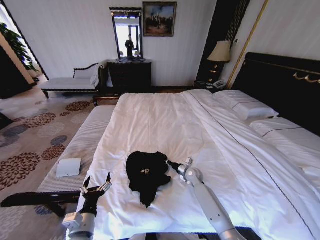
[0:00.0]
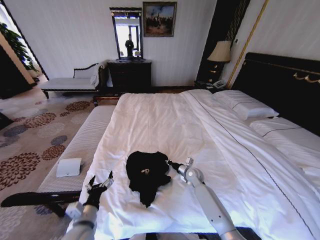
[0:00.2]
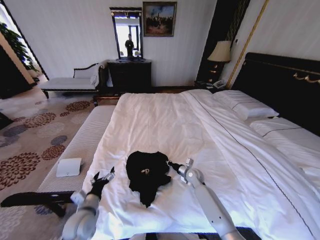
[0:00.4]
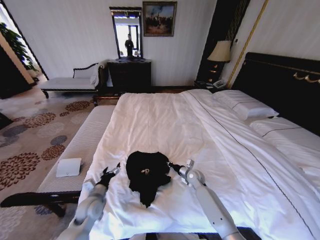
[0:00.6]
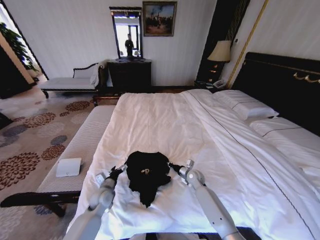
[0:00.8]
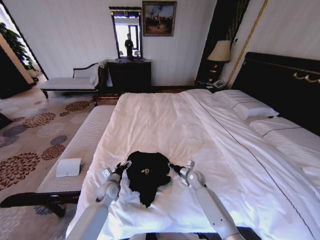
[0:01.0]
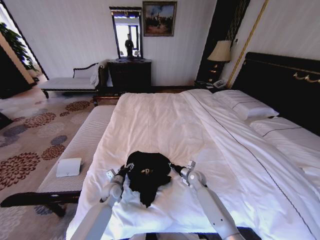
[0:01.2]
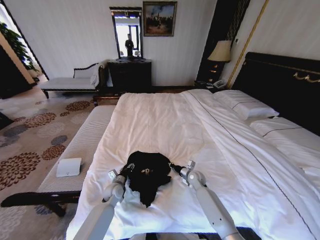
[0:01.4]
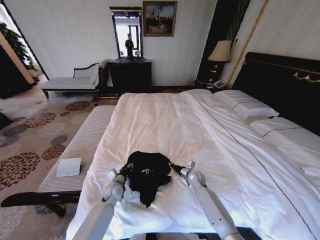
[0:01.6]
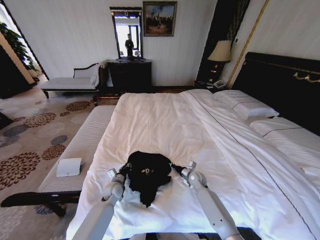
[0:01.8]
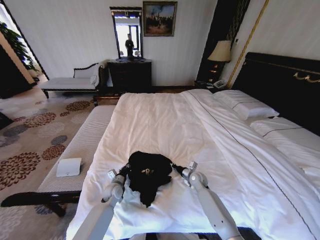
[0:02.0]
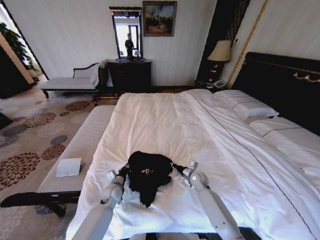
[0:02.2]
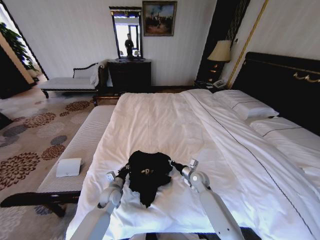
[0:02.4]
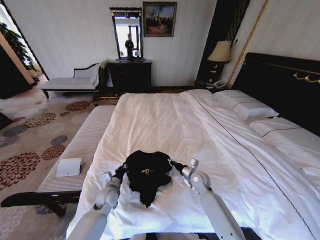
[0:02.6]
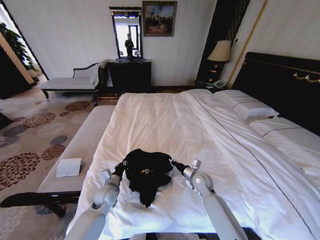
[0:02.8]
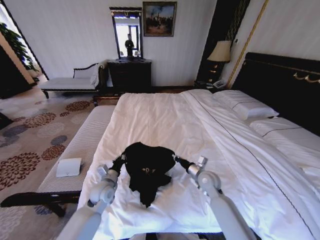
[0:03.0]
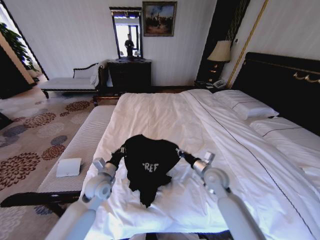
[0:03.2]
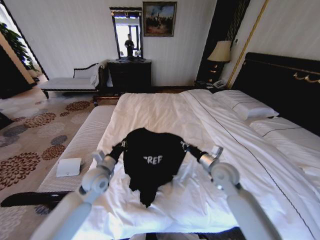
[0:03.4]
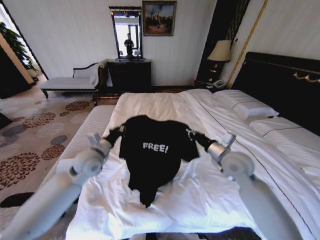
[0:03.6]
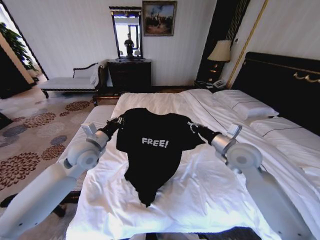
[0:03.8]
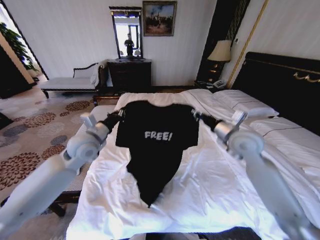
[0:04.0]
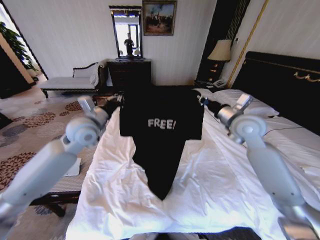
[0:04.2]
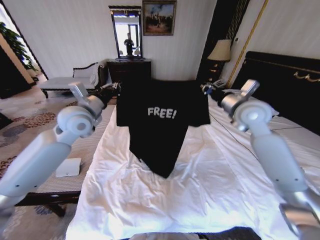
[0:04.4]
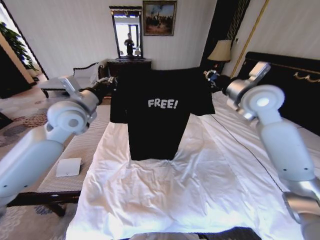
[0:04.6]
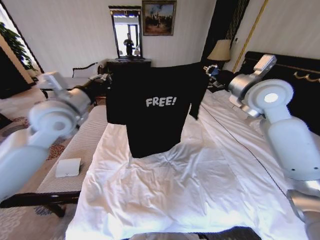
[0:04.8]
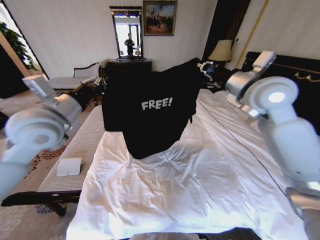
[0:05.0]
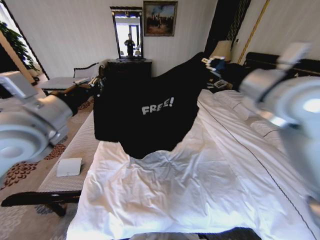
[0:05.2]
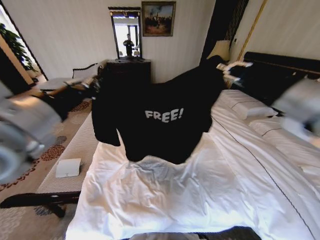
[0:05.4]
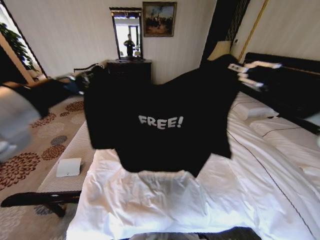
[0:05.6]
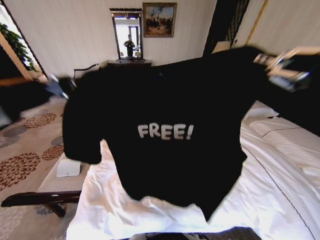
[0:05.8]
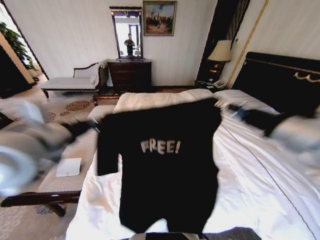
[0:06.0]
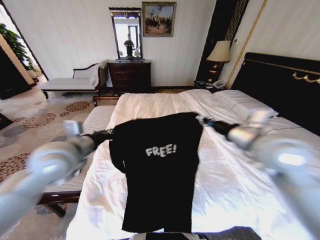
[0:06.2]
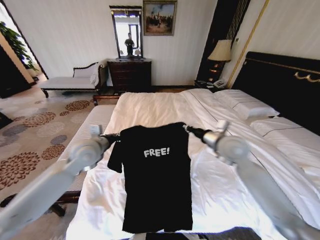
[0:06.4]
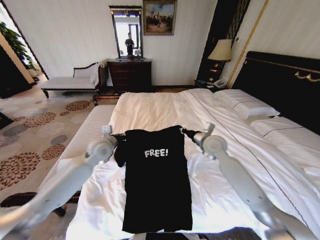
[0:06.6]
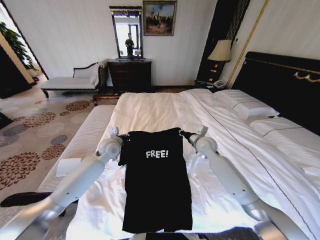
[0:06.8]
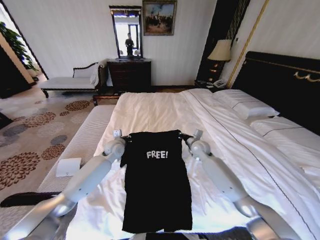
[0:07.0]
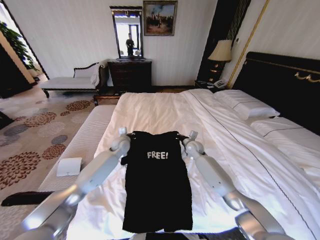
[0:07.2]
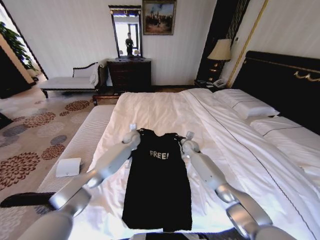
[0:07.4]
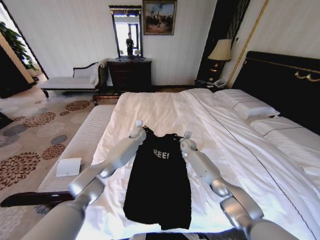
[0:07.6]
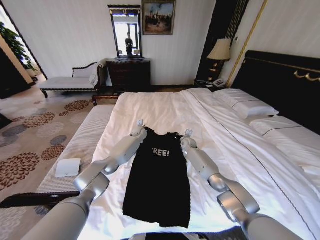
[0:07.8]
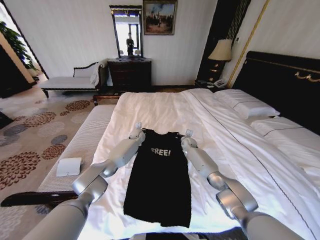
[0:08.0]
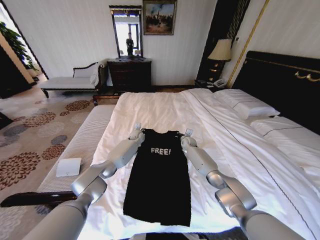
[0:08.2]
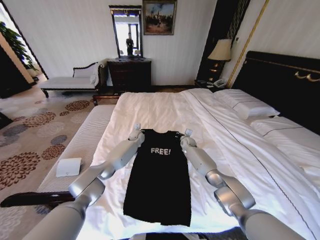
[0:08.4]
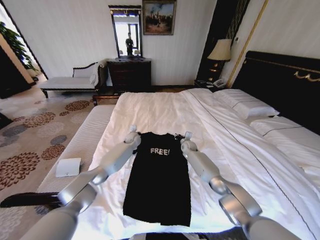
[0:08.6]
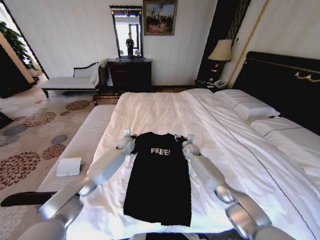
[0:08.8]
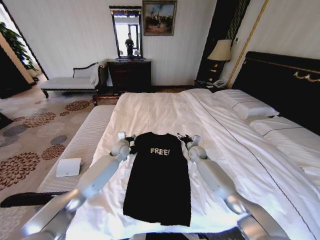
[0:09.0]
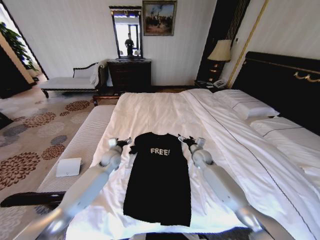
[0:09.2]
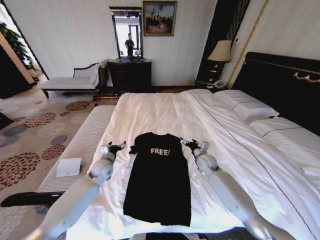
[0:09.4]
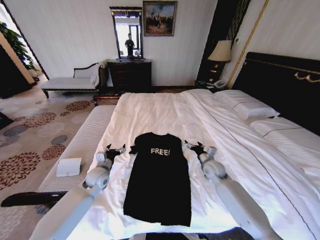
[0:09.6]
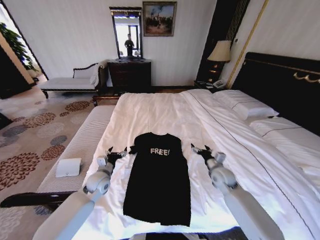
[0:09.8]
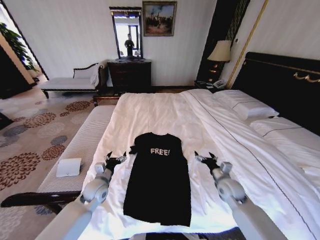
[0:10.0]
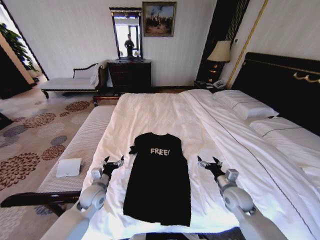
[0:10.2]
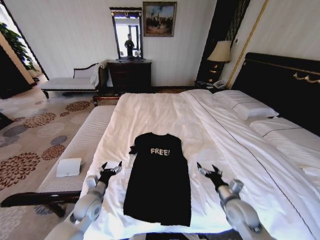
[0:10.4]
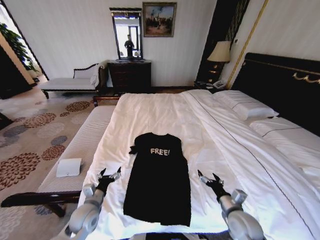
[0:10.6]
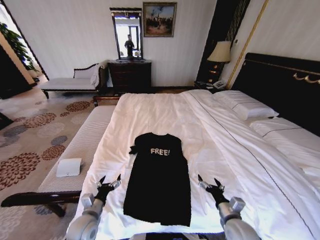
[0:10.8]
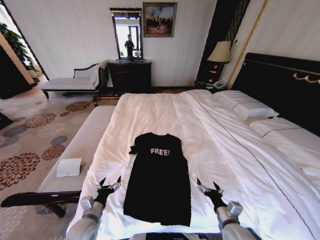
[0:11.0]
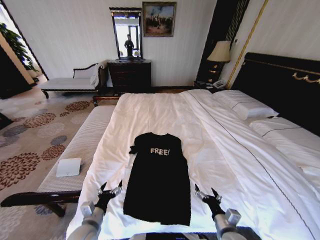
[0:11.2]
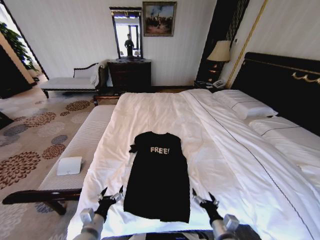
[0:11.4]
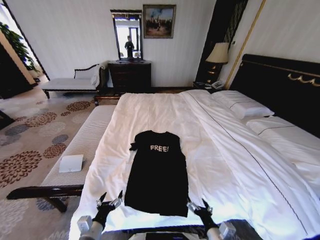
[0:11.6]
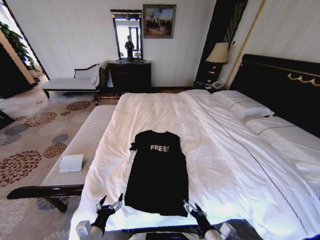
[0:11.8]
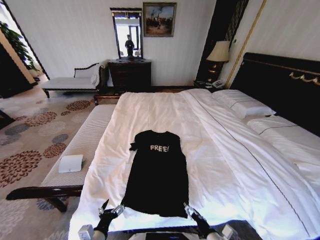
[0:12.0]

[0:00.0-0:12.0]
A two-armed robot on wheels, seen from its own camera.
Task of the whole recording: Fold the clothes on the bed.
0.0 to 1.6 s: The left gripper goes approximately 25 cm forward and downward, and closes.
1.6 to 3.0 s: The left gripper heads upward, covering approximately 10 cm, and closes up, while the right gripper shifts approximately 15 cm upward and backward.
3.0 to 4.4 s: The two grippers go some 30 cm upward.
4.4 to 6.0 s: Both grippers travel together backward, some 20 cm.
6.0 to 7.6 s: The left gripper shifts about 50 cm forward, downward and to the right, while the right gripper heads downward and forward, covering approximately 50 cm.
7.6 to 9.0 s: The left gripper travels backward and to the left by approximately 15 cm, and opens up; the right gripper is displaced backward by roughly 5 cm, and opens.
9.0 to 10.4 s: Both grippers move backward, about 30 cm. The right gripper opens up.
10.4 to 12.0 s: The left gripper shifts about 15 cm backward. The right gripper goes roughly 15 cm backward and to the left.

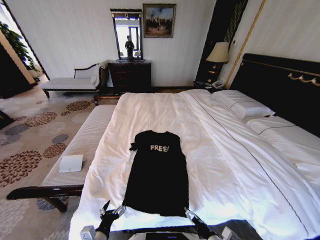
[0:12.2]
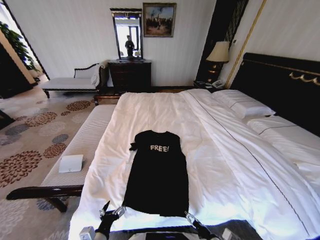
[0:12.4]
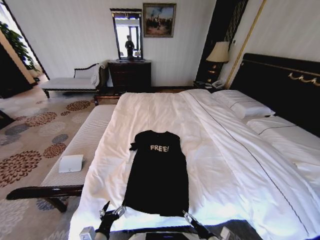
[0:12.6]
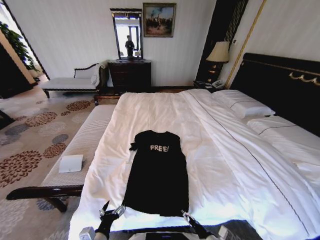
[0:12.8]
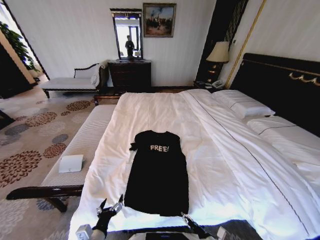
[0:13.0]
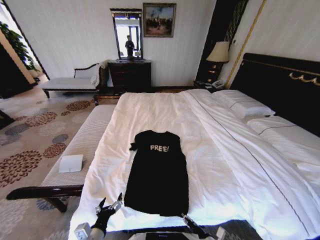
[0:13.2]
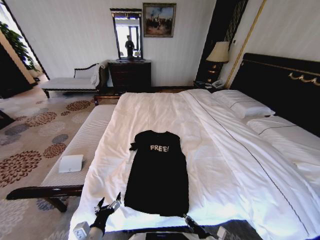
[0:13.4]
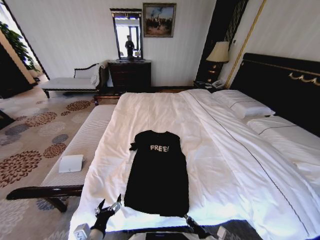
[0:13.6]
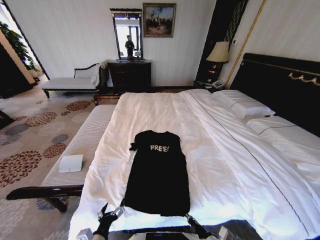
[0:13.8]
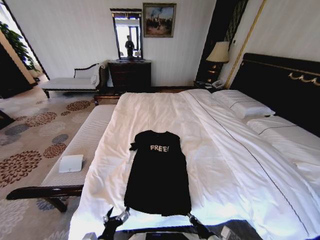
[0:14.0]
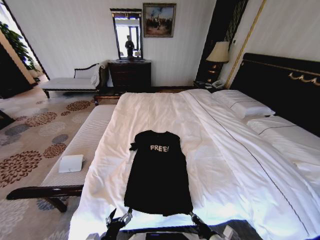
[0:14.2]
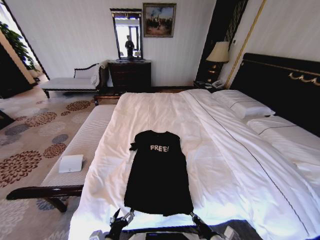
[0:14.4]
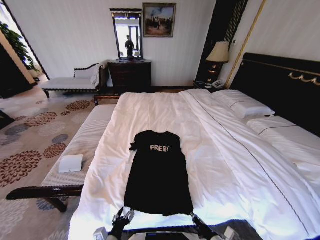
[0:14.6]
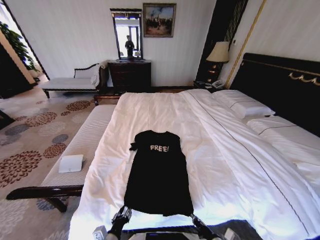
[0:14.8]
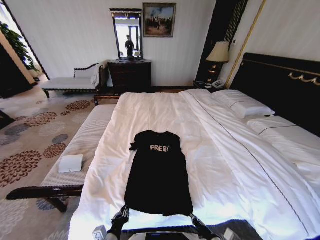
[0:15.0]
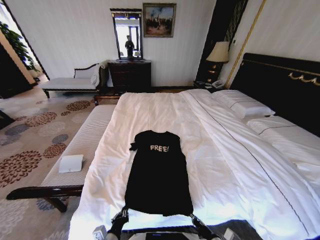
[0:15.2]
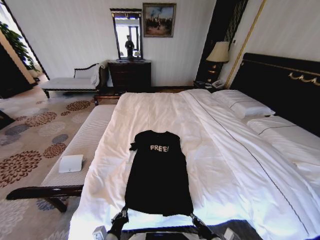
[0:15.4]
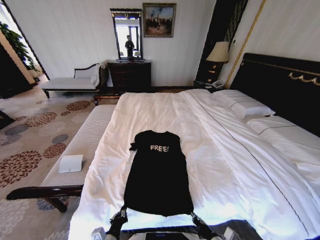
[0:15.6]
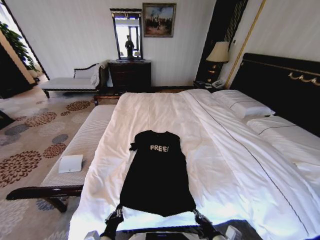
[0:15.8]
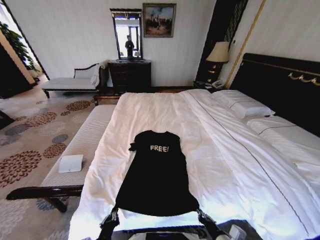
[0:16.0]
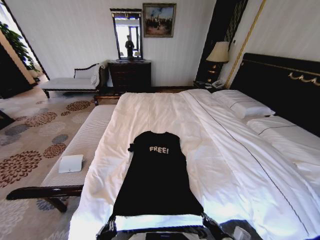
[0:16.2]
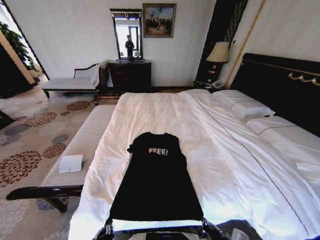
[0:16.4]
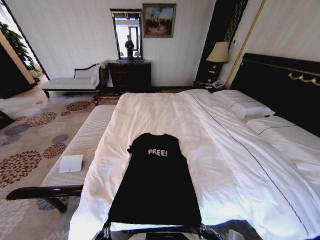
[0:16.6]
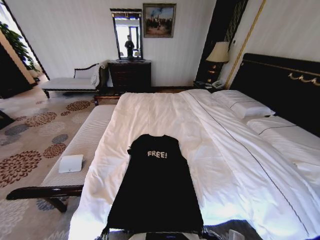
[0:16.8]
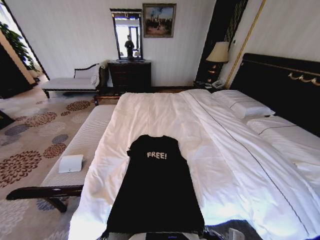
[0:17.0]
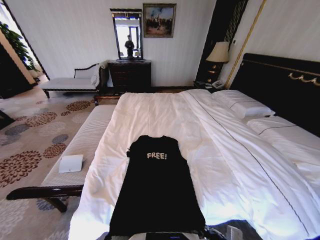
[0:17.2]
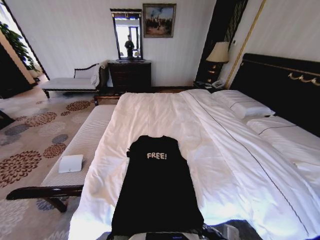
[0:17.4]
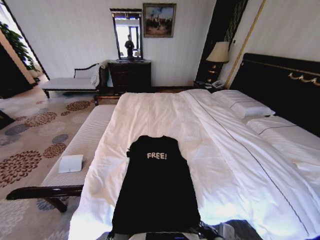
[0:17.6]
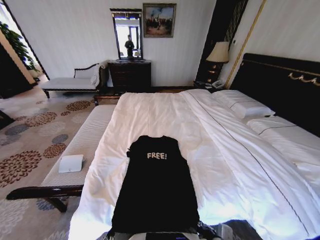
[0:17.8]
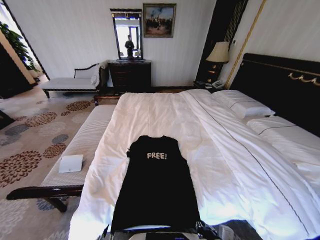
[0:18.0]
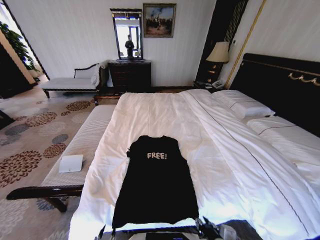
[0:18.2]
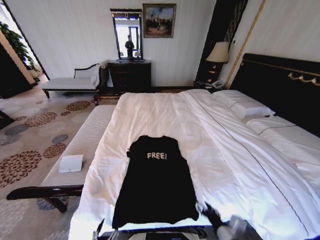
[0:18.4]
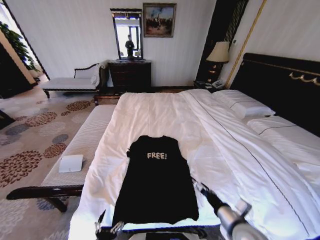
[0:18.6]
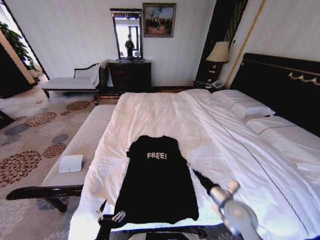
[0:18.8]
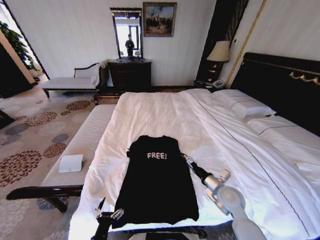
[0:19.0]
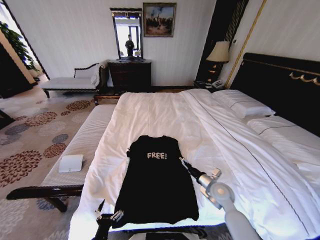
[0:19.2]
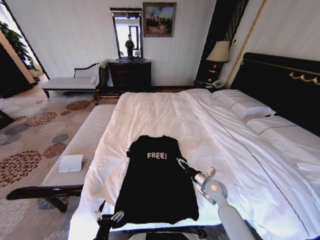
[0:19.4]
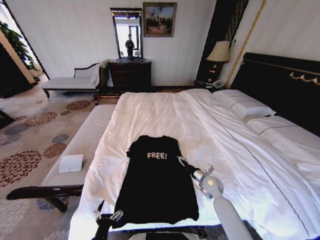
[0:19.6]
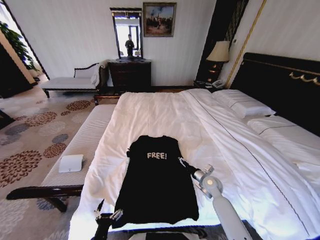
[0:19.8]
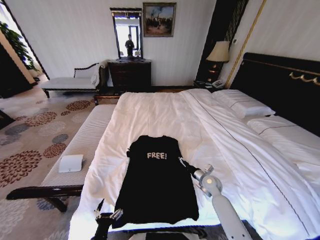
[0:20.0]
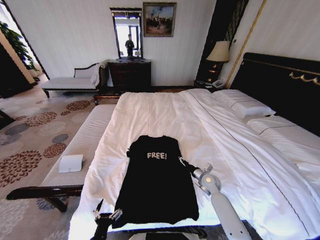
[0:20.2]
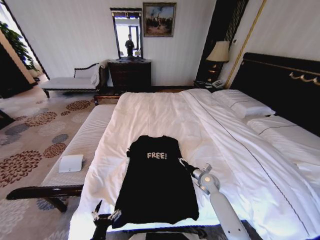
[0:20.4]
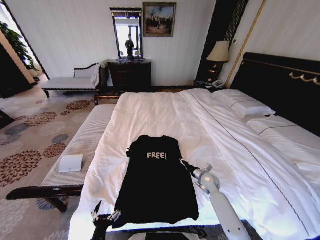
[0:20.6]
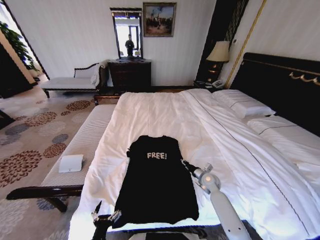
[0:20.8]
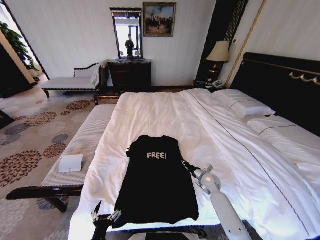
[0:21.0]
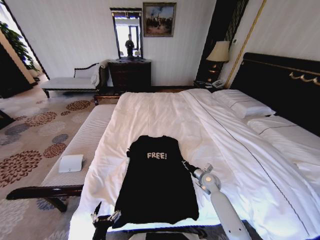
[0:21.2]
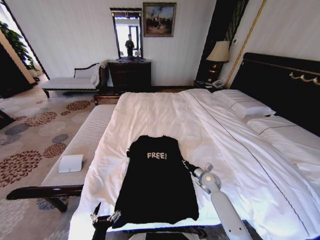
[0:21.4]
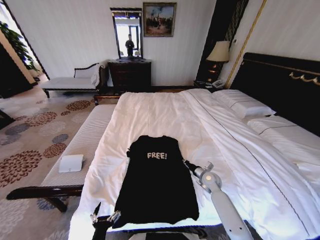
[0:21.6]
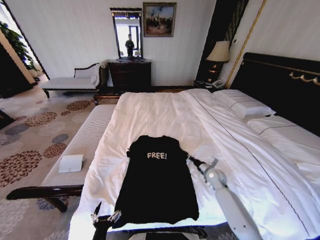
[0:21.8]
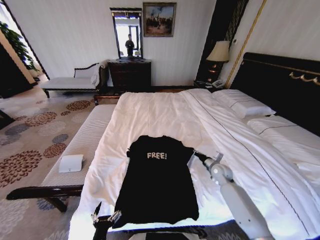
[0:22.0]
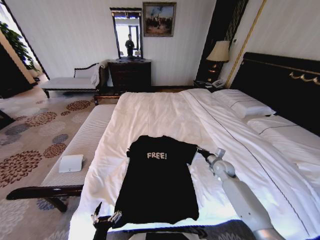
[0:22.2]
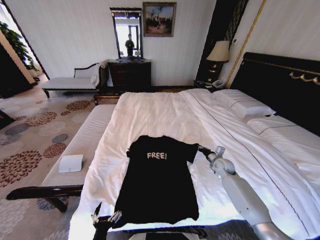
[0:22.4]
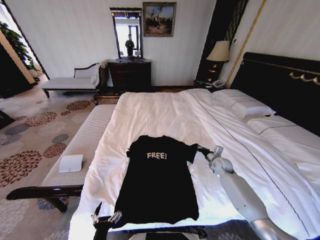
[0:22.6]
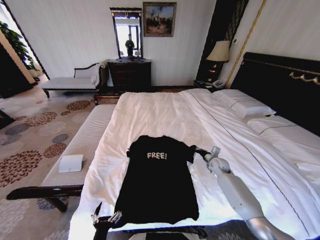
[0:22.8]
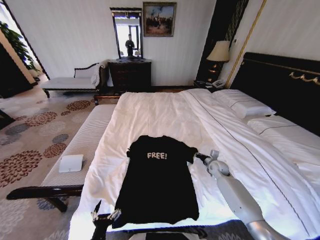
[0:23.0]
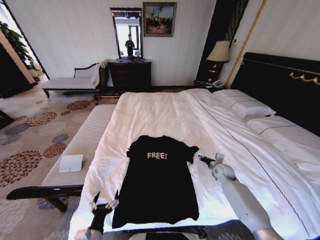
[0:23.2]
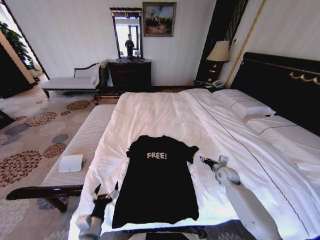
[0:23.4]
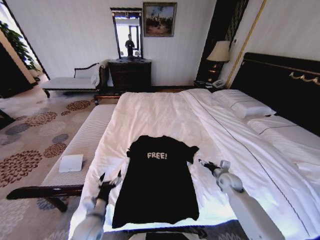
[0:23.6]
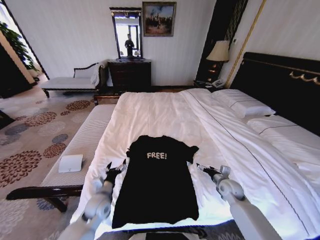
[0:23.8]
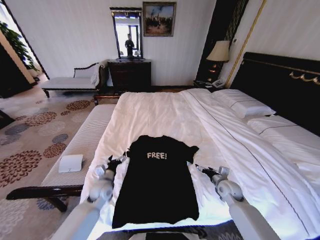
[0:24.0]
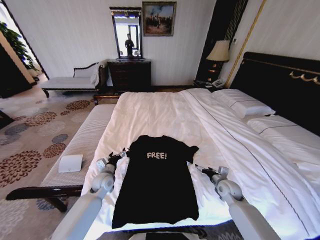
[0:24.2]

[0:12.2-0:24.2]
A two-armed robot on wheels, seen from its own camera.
Task of the whole recording: Fold the clothes on the bed.
12.2 to 13.8 s: The right gripper closes up.
13.8 to 15.2 s: The left gripper closes its fingers.
15.2 to 16.6 s: The right gripper goes roughly 5 cm upward; the left gripper shifts some 10 cm backward and upward.
16.6 to 18.2 s: The left gripper opens its fingers. Meanwhile the right gripper opens its fingers.
18.2 to 19.8 s: The left gripper heads forward, covering some 5 cm, and opens its fingers. Meanwhile the right gripper shifts roughly 30 cm forward, and opens up.
19.8 to 21.2 s: The right gripper closes up.
21.2 to 22.6 s: The right gripper shifts about 10 cm forward, to the right and upward.
22.6 to 24.2 s: The right gripper travels backward by some 10 cm, and opens. Meanwhile the left gripper goes roughly 30 cm forward.
